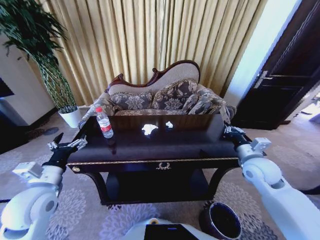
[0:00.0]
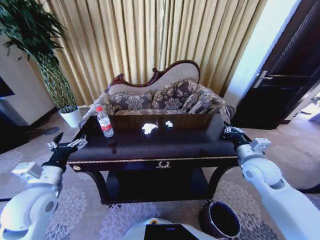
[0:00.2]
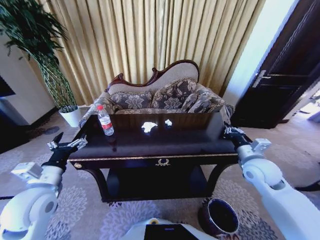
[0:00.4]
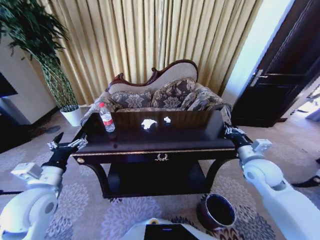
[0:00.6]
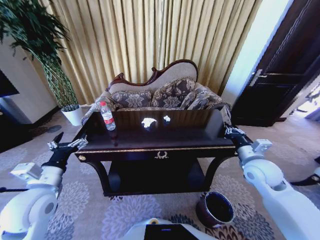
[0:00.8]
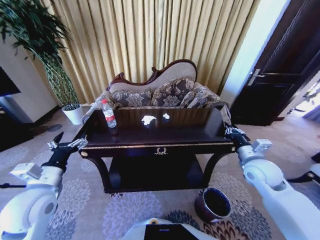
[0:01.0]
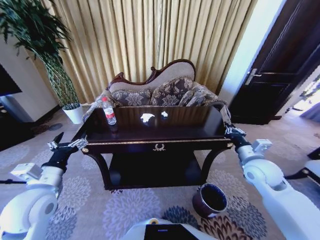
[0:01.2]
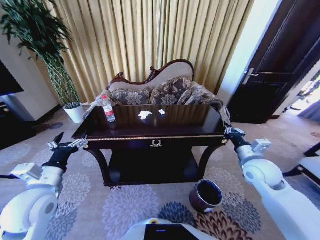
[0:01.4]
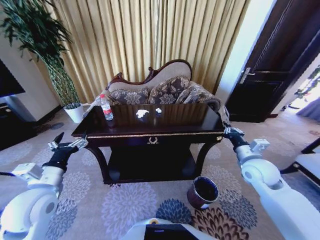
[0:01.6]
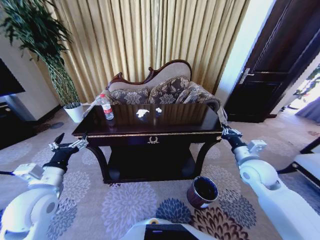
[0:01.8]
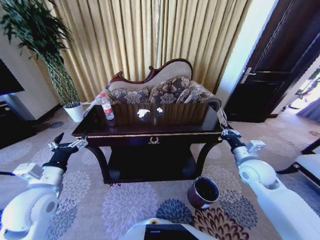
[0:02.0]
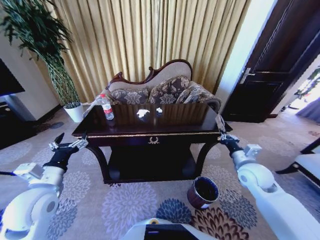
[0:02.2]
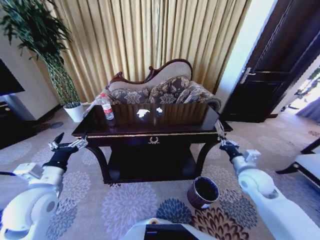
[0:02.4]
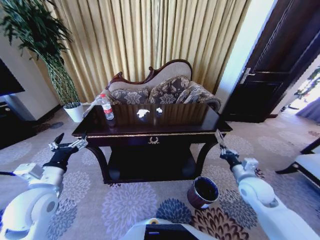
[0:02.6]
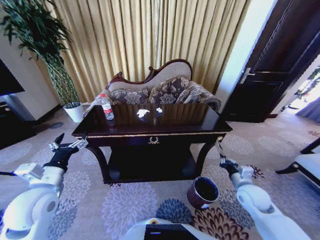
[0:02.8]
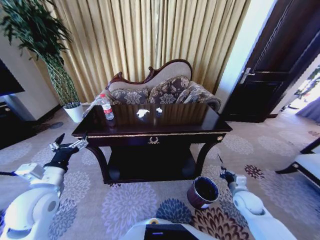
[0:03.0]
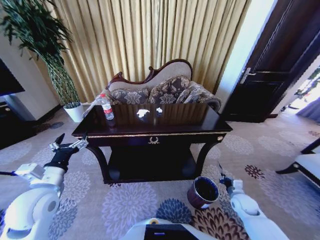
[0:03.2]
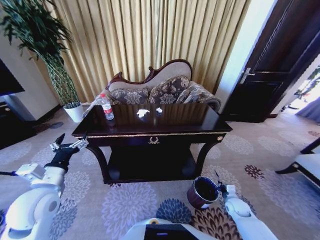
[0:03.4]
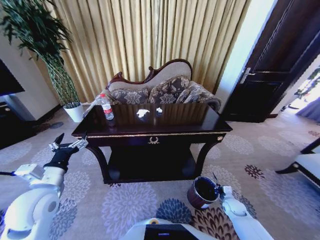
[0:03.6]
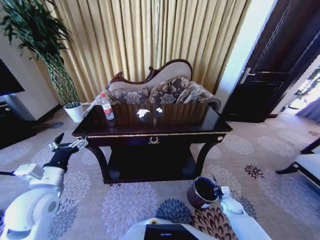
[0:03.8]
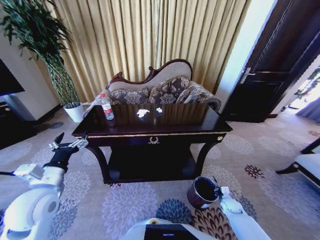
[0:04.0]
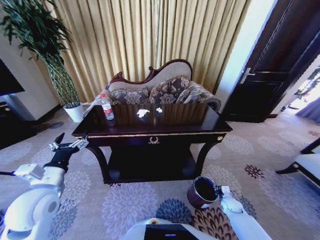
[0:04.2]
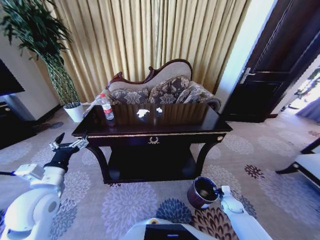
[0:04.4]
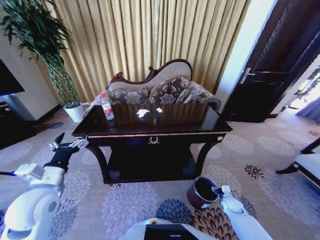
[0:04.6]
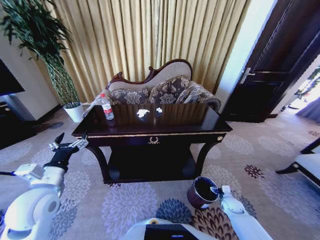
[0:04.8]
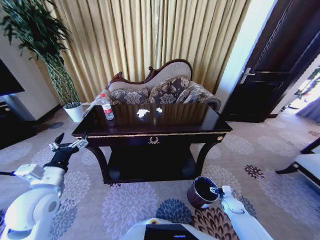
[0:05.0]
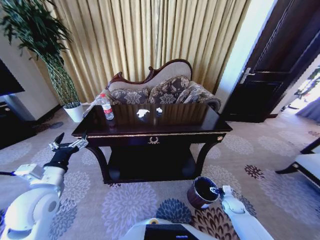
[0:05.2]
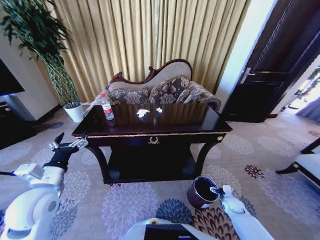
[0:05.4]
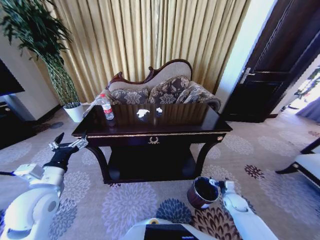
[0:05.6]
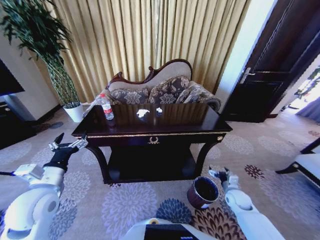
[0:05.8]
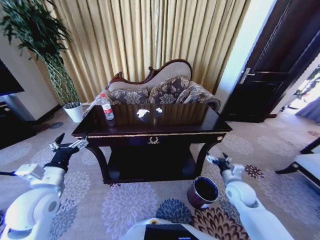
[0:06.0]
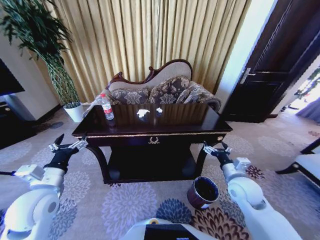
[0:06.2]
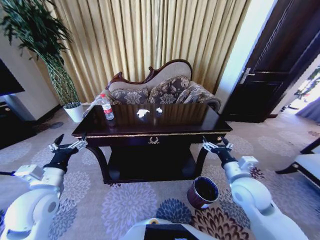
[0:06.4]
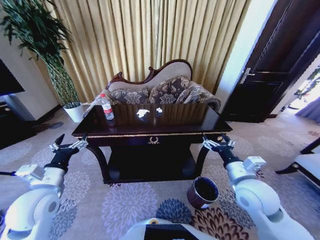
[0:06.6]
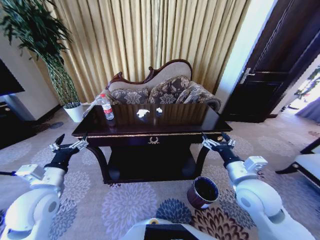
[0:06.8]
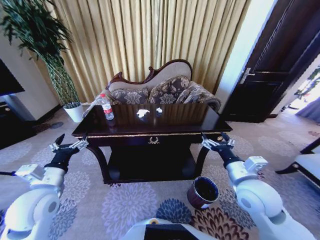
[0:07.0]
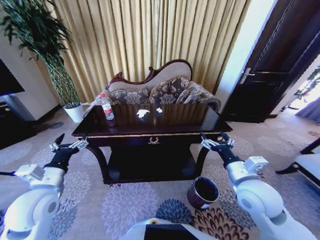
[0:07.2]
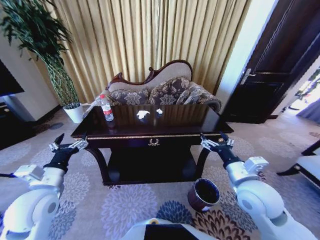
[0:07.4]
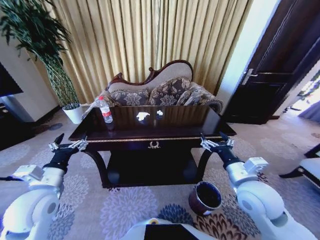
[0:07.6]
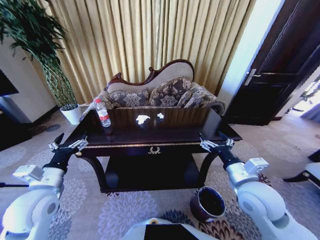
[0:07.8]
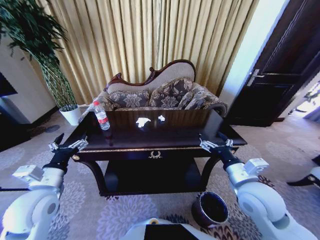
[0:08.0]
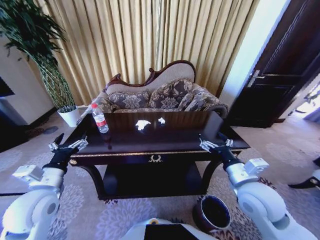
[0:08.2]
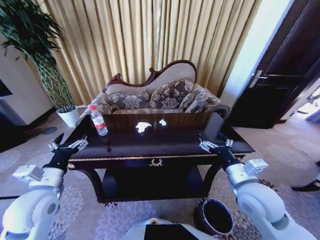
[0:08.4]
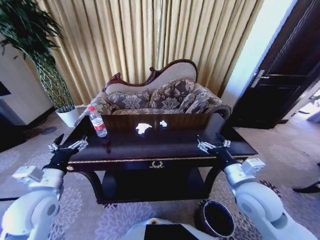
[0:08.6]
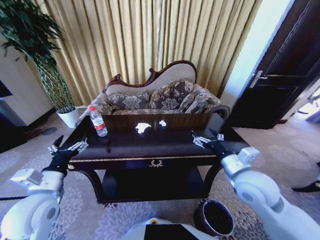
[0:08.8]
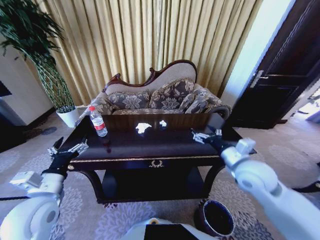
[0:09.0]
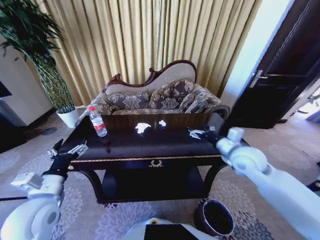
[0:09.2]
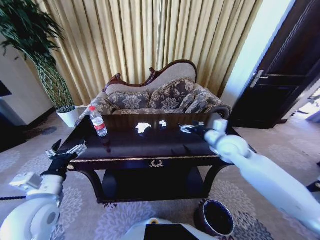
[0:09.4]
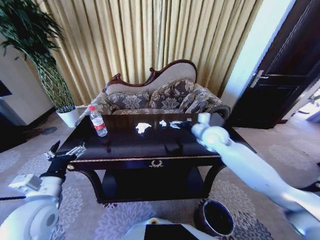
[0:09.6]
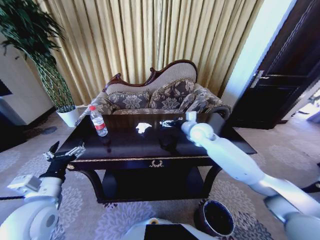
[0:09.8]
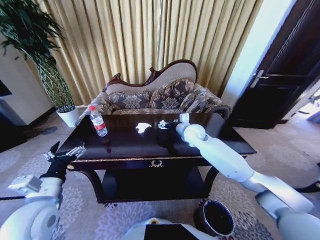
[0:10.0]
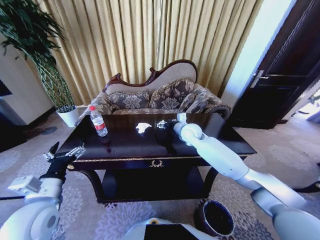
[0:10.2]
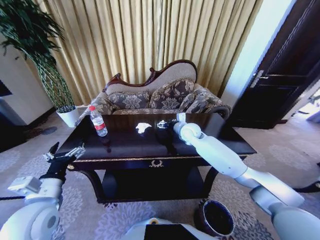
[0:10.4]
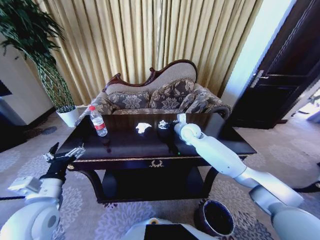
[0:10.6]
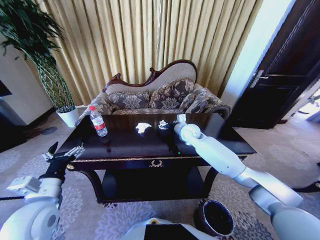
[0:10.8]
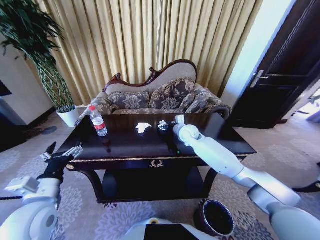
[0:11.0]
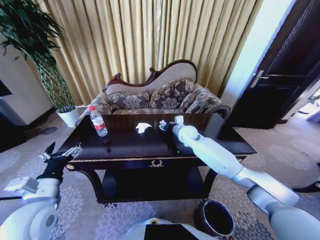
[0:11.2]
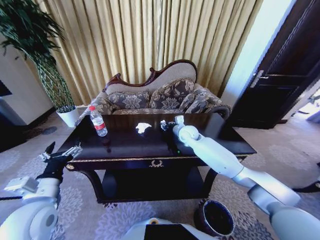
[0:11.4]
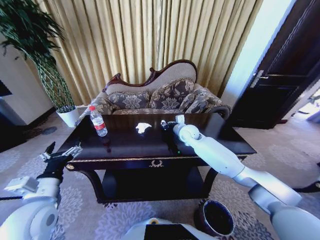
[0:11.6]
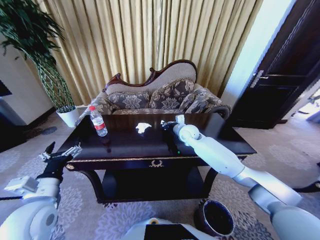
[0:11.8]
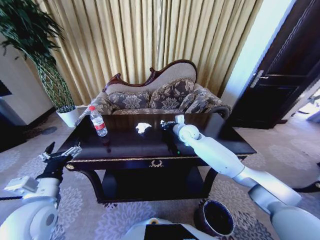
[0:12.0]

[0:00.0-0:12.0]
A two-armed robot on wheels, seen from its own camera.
Task of the whole recording: Move to the front of the table and place the trash on the table into the trash bin.
0:01.6 to 0:03.0: The right gripper moves downward, some 20 cm.
0:03.0 to 0:04.4: The right gripper heads downward, covering some 15 cm, and opens its fingers.
0:04.4 to 0:06.0: The right gripper heads upward, covering about 20 cm, and opens.
0:06.0 to 0:07.6: The right gripper travels upward and to the left by approximately 15 cm.
0:07.6 to 0:09.0: The right gripper moves forward, about 5 cm.
0:09.0 to 0:10.4: The right gripper is displaced forward and to the left by some 25 cm.
0:10.4 to 0:12.0: The right gripper closes up.

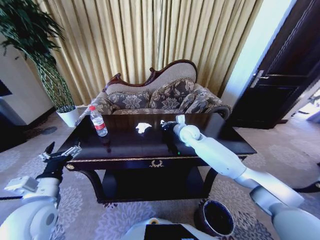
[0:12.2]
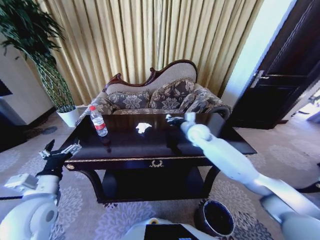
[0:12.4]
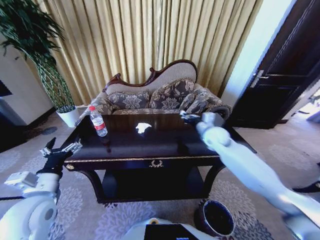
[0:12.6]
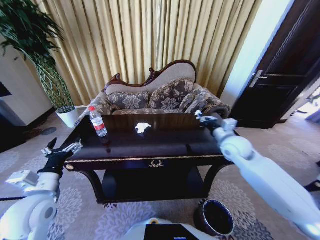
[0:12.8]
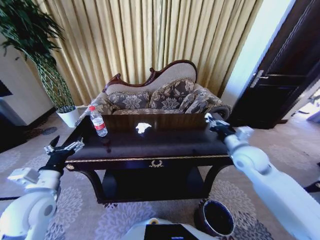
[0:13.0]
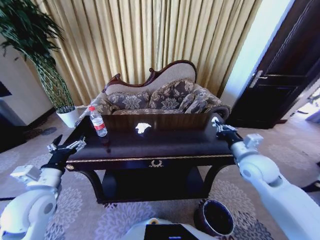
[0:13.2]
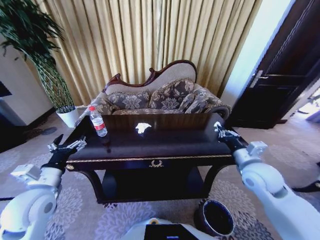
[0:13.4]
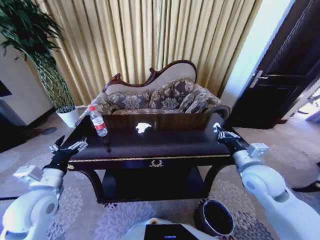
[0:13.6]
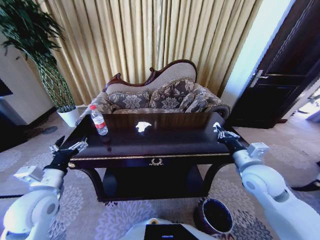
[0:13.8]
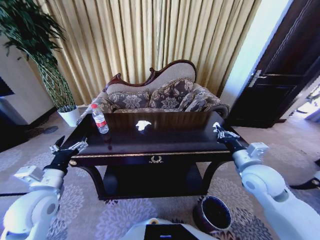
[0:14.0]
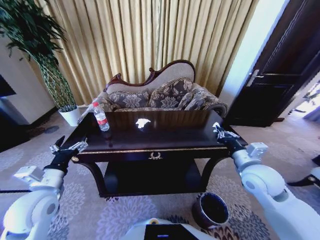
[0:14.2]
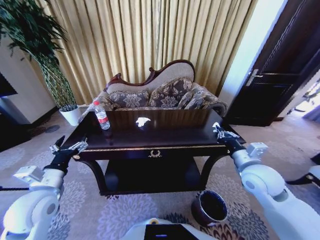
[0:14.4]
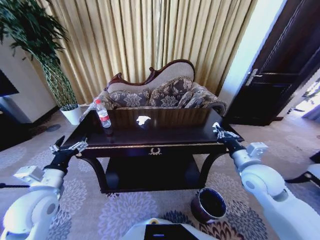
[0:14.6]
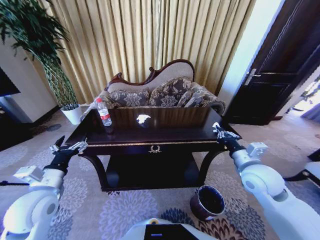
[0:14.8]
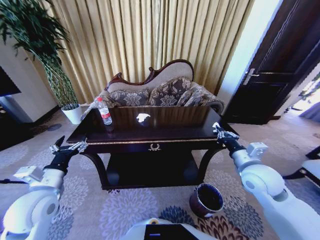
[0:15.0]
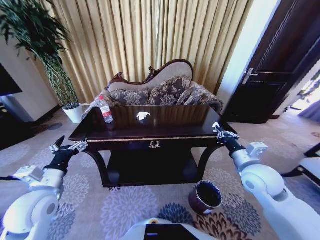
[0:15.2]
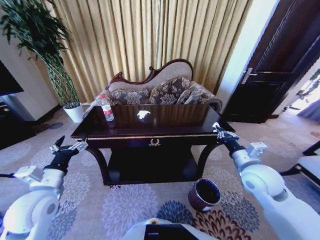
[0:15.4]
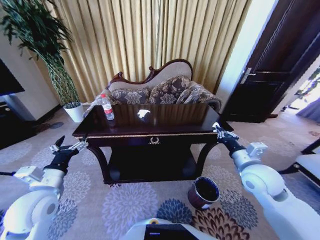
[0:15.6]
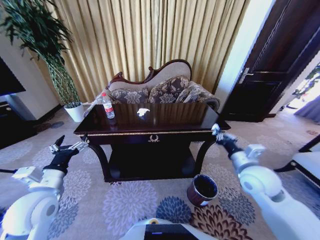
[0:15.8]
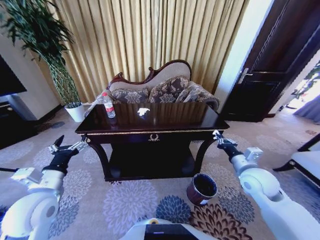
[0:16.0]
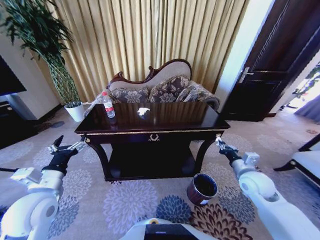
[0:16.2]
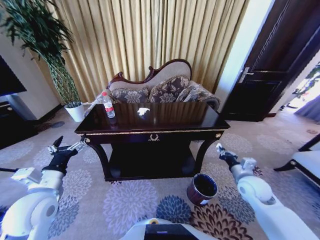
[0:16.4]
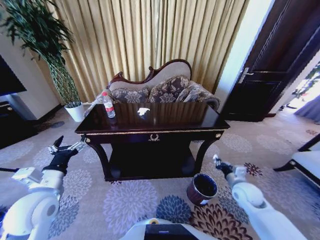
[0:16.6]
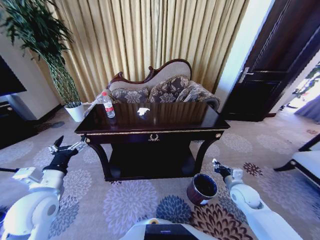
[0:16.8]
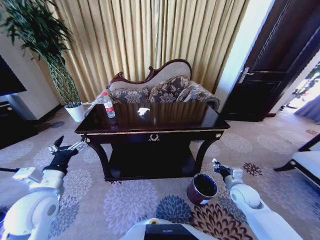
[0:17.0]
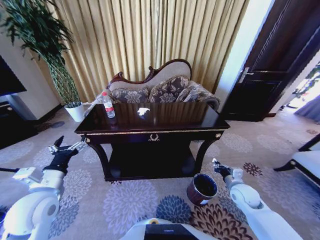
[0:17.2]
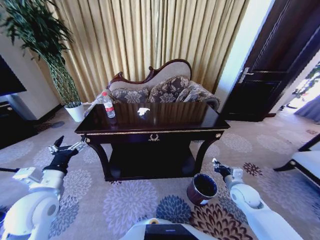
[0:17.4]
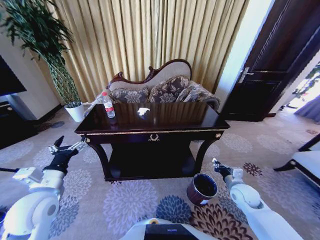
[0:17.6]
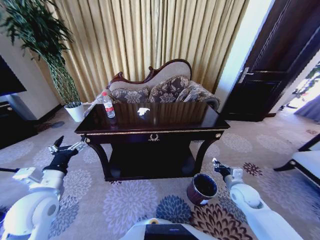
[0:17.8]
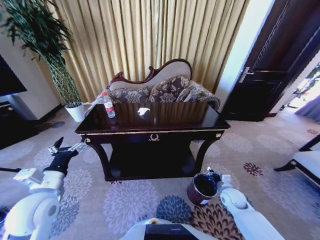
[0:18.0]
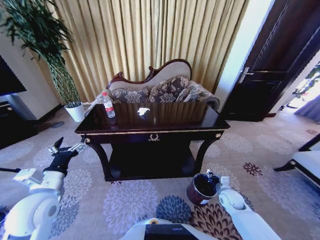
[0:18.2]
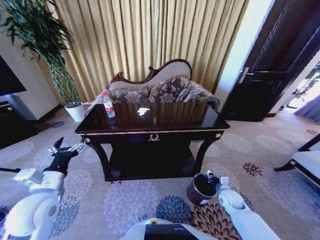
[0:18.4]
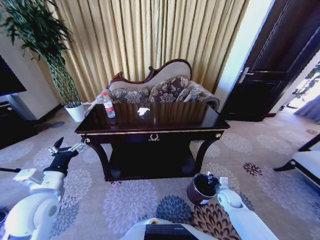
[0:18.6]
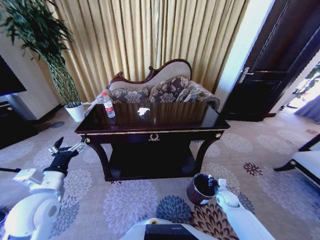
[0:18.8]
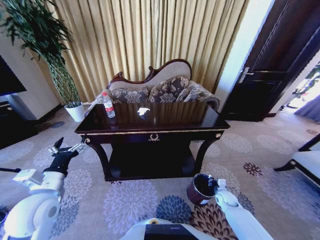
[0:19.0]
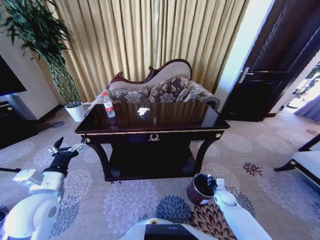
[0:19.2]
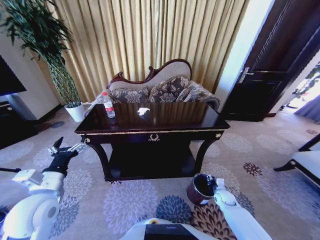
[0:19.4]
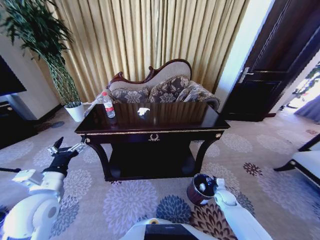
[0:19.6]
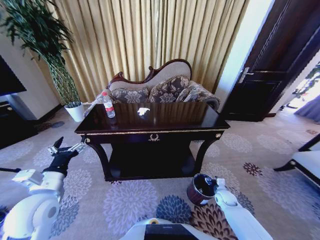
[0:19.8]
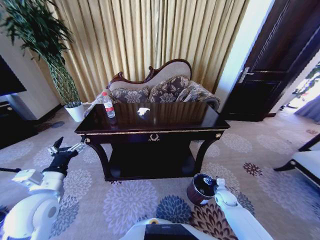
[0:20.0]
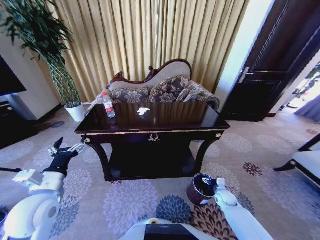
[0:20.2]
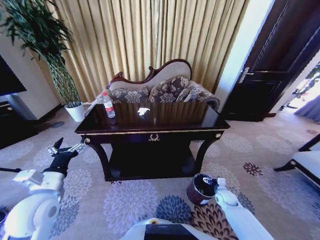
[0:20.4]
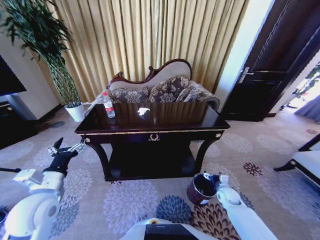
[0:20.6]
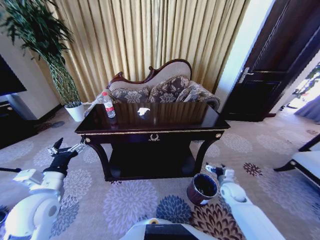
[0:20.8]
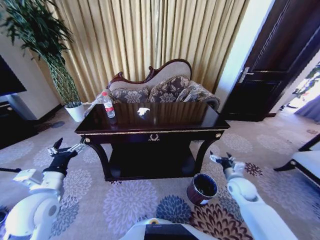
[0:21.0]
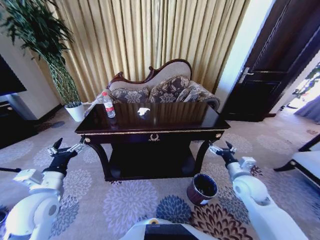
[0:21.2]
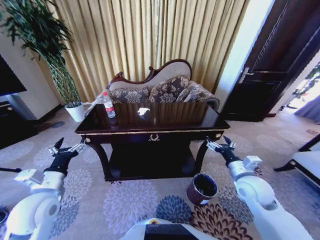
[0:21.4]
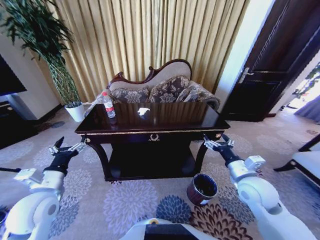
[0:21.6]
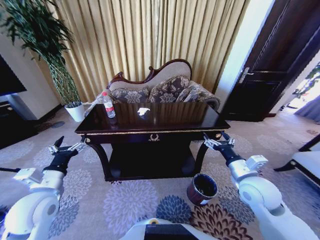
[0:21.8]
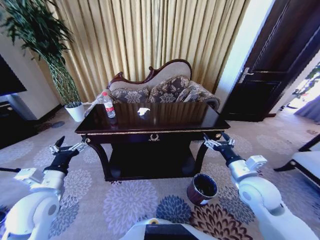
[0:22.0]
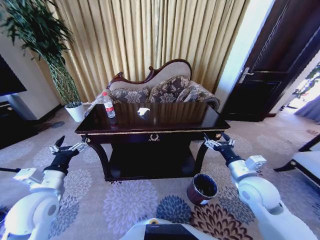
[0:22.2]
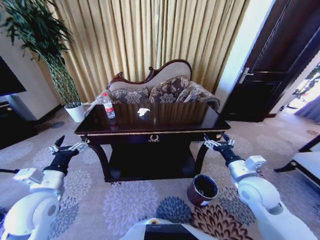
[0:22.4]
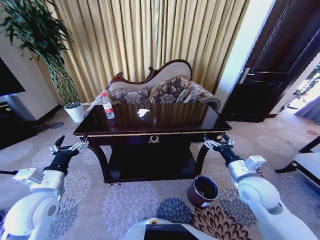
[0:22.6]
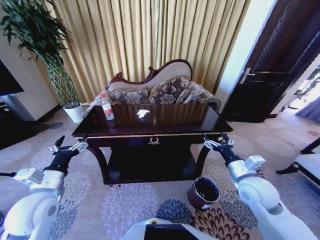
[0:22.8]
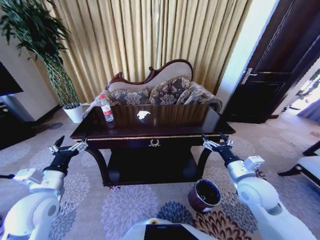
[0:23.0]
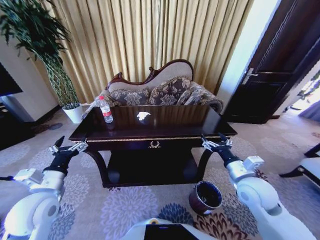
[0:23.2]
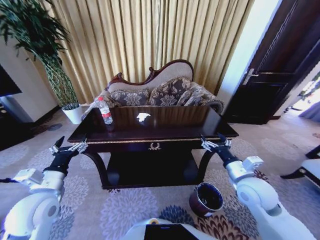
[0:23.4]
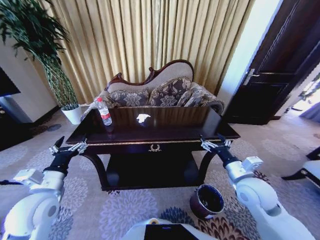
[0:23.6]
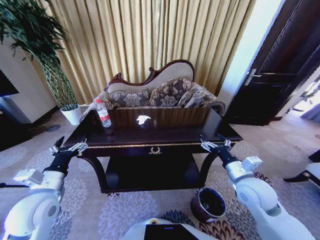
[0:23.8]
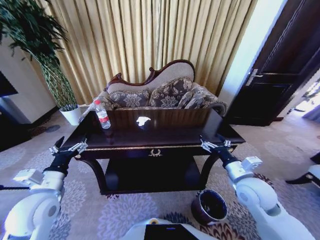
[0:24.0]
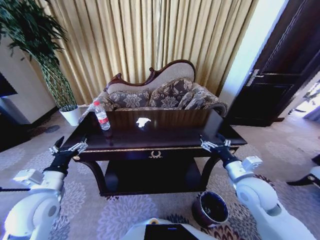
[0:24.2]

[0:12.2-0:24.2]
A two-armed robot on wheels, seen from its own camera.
Task of the whole recording: Move to the front of the table and place the trash on the table into the trash bin.
0:12.2 to 0:13.8: The right gripper is displaced backward and to the right by roughly 30 cm.
0:15.2 to 0:16.6: The right gripper travels downward by roughly 15 cm.
0:16.6 to 0:18.2: The right gripper travels downward by some 10 cm.
0:18.2 to 0:19.8: The right gripper shifts some 5 cm downward, and opens.
0:19.8 to 0:21.2: The right gripper is displaced upward by approximately 25 cm, and opens up.
0:21.2 to 0:22.6: The right gripper moves upward, approximately 5 cm.
